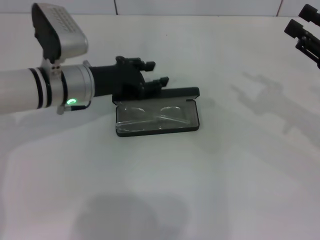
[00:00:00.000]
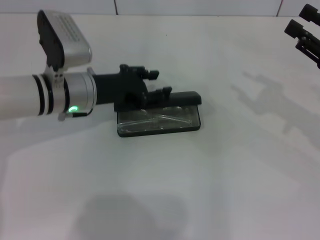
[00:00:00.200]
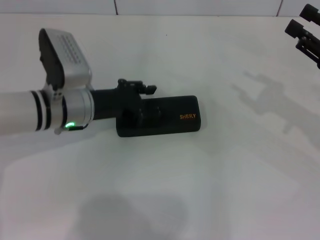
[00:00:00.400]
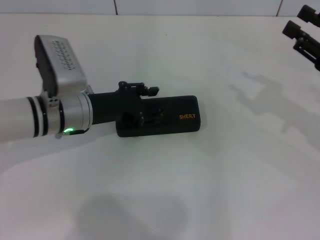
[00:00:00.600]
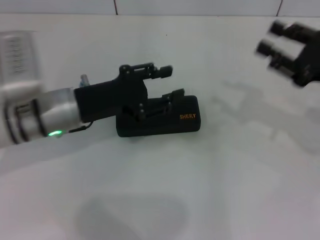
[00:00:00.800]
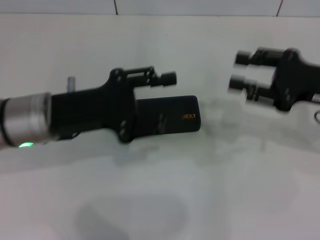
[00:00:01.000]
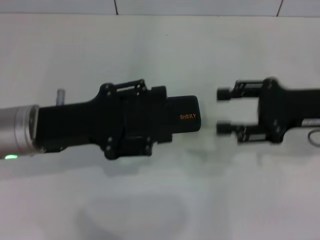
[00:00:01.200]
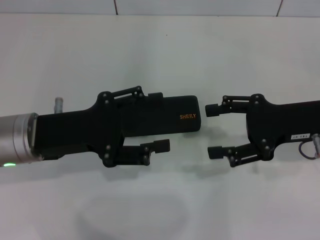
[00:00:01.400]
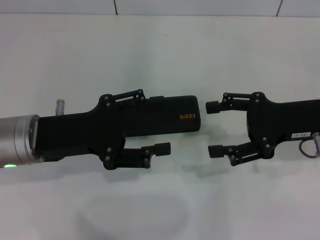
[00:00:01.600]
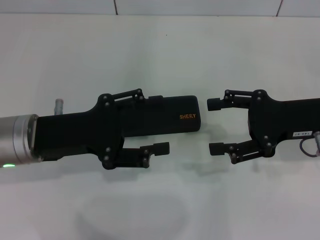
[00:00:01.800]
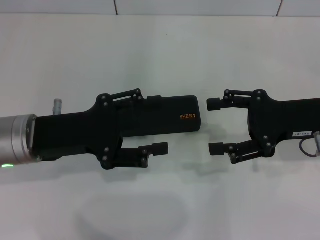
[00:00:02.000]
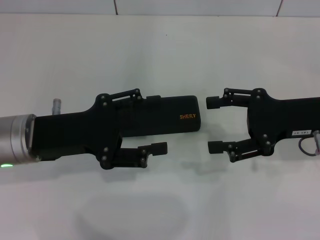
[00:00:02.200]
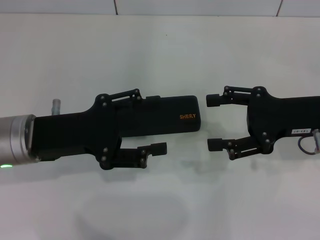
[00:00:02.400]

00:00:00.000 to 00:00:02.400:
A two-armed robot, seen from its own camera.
00:00:00.000 to 00:00:01.200: The left gripper heads backward, covering roughly 10 cm. Meanwhile the right gripper goes about 5 cm to the left.
00:00:01.200 to 00:00:02.400: The right gripper opens.
